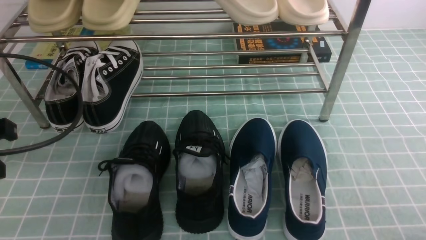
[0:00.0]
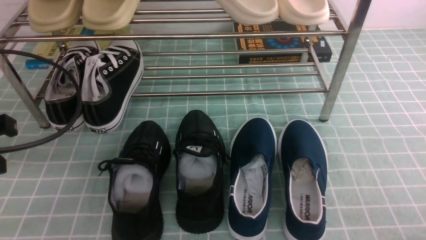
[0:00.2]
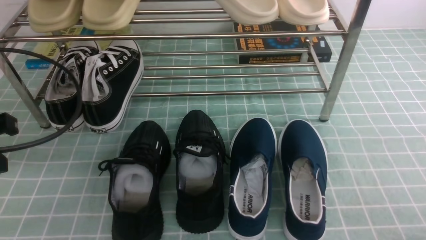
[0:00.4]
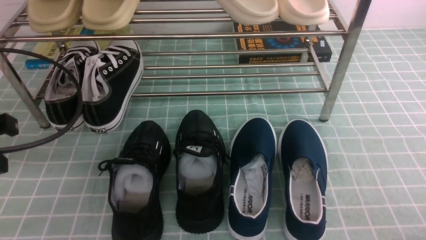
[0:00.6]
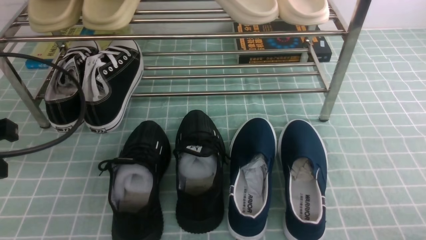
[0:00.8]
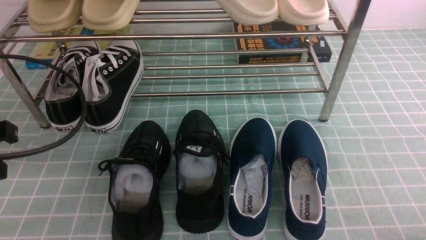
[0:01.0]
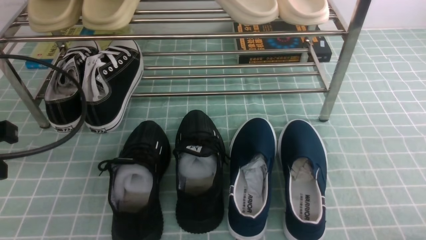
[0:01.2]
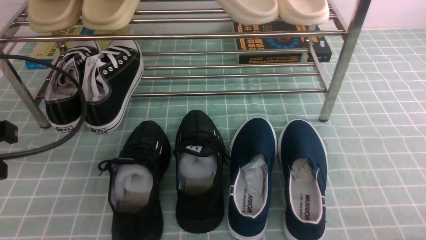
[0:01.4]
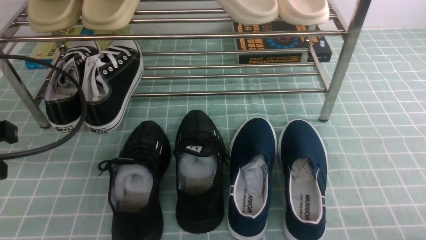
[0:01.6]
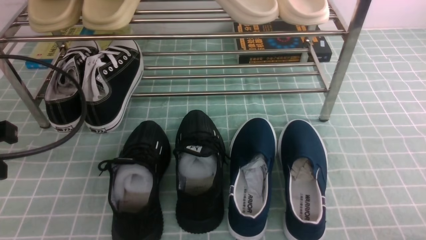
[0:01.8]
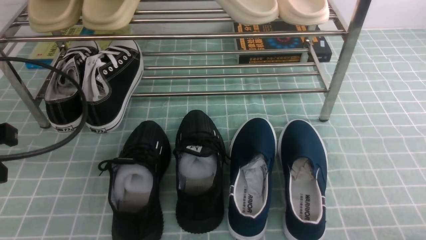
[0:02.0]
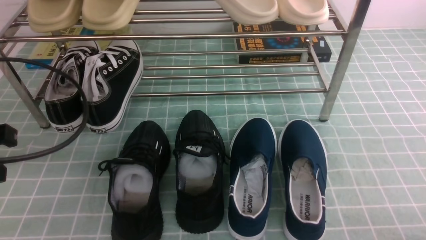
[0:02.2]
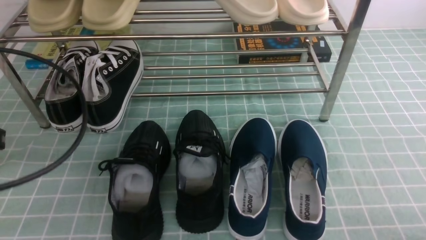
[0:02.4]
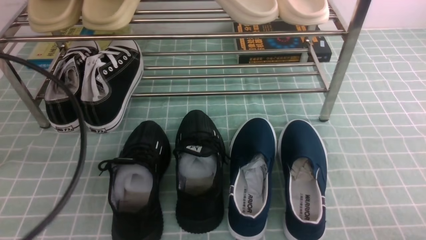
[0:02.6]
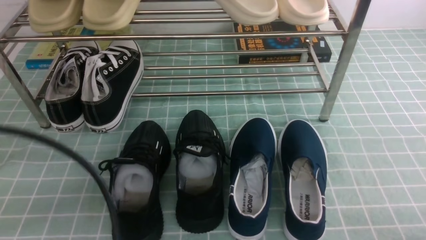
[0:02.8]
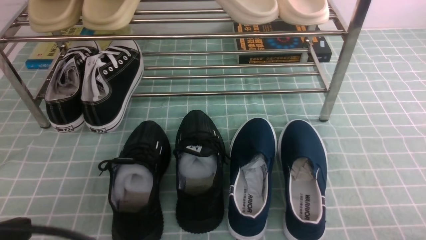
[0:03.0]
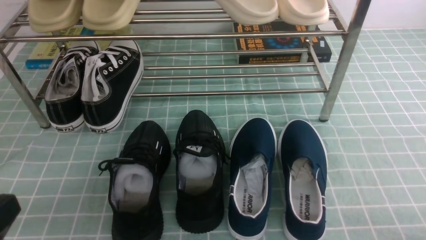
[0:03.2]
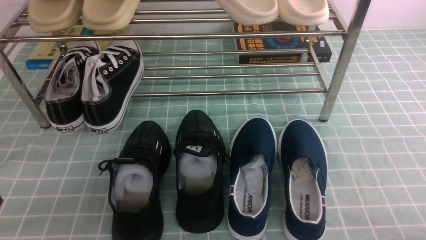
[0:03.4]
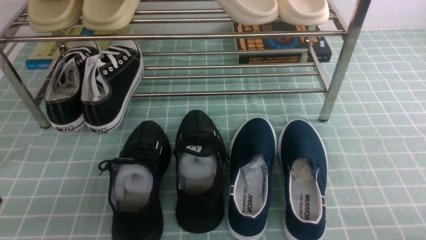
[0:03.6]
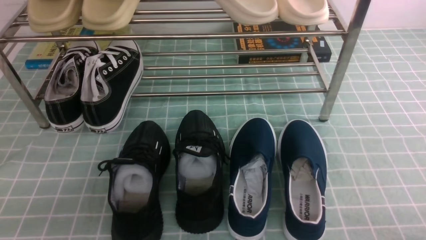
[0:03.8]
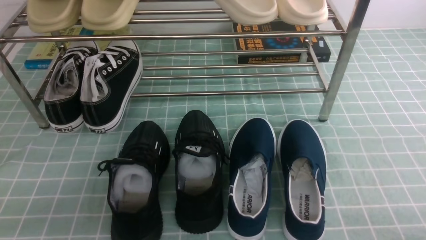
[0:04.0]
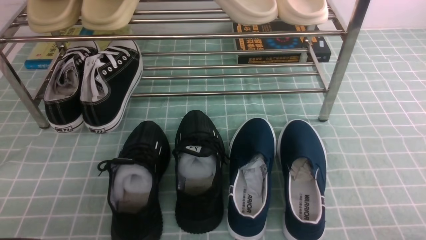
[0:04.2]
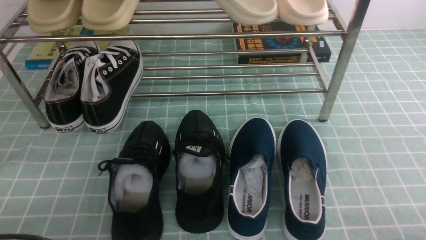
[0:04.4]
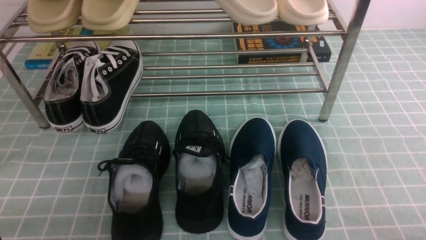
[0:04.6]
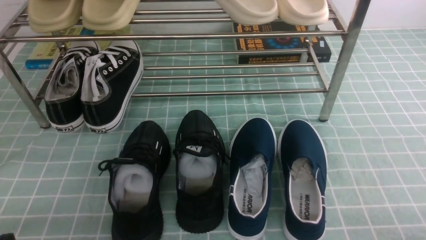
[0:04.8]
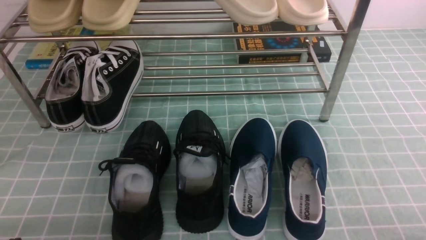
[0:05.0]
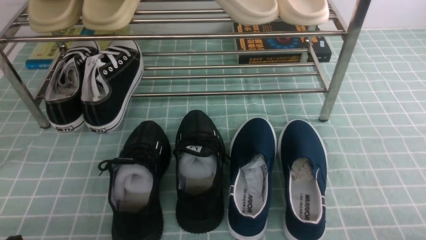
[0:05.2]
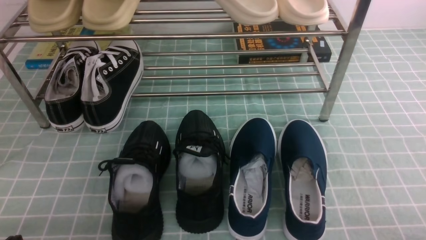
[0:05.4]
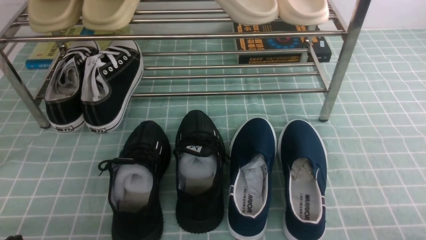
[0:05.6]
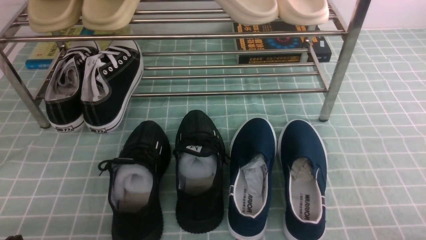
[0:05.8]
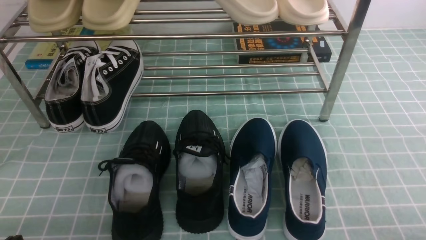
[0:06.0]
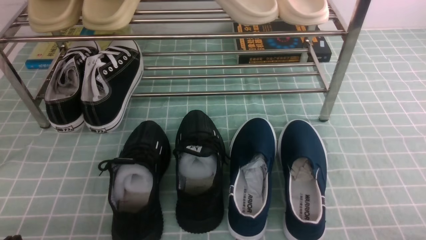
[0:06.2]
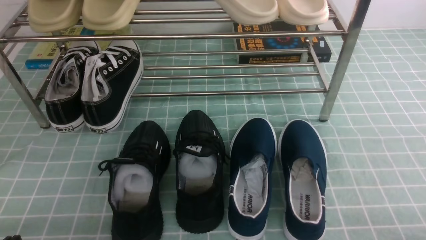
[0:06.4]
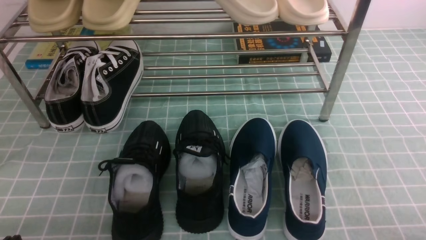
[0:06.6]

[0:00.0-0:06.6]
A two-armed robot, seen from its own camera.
0:01.6 to 0:03.2: The left gripper is displaced backward by about 20 cm.
0:03.2 to 0:05.0: The left gripper shifts about 15 cm downward.
0:05.0 to 0:06.6: Both grippers stay about where they are.

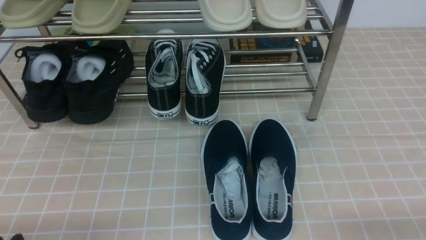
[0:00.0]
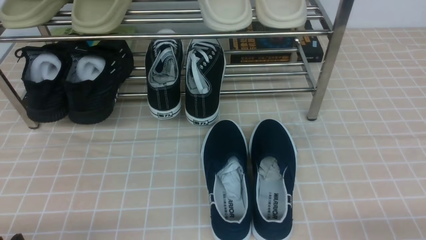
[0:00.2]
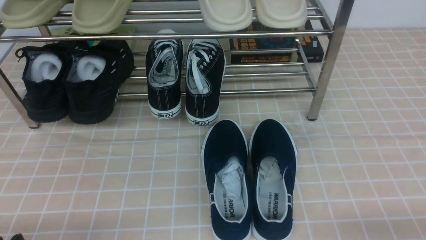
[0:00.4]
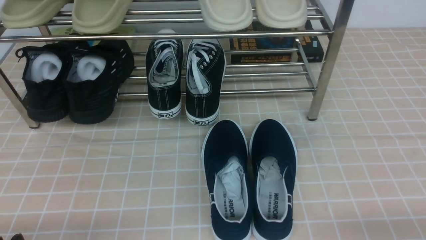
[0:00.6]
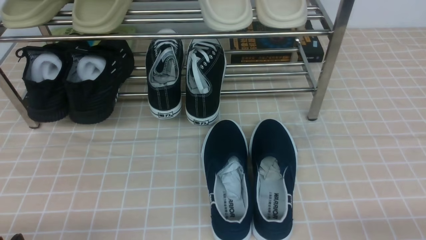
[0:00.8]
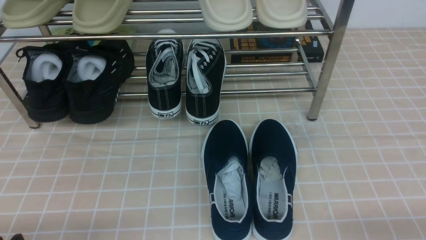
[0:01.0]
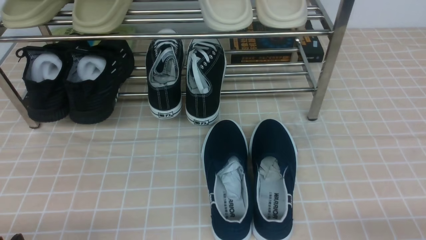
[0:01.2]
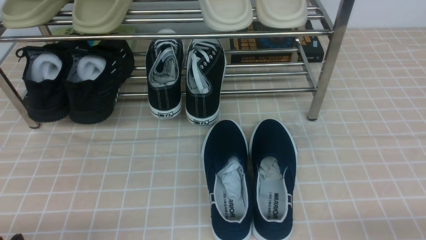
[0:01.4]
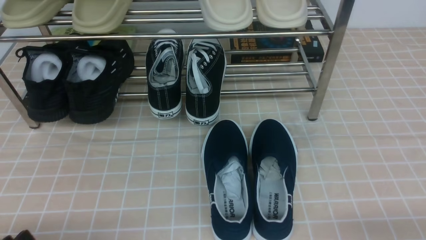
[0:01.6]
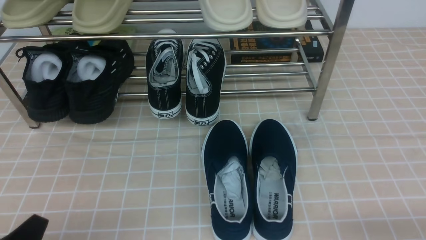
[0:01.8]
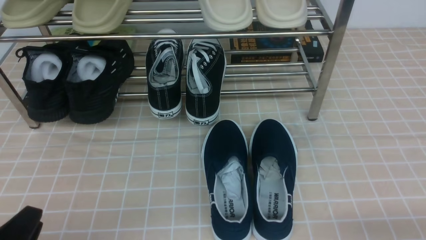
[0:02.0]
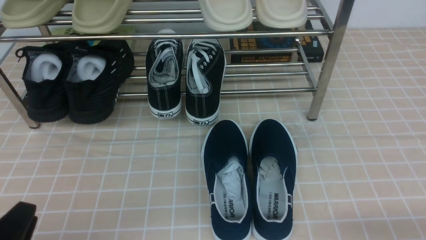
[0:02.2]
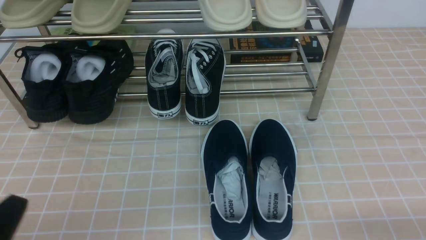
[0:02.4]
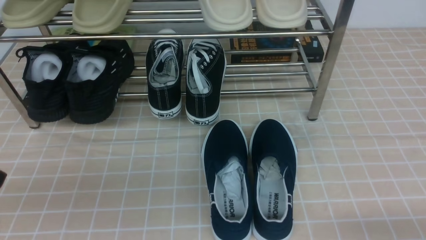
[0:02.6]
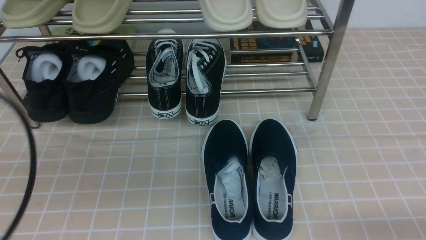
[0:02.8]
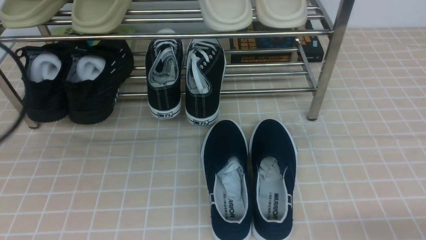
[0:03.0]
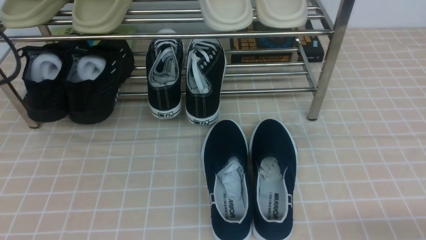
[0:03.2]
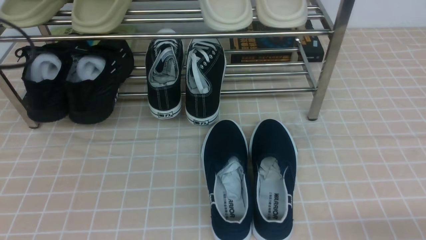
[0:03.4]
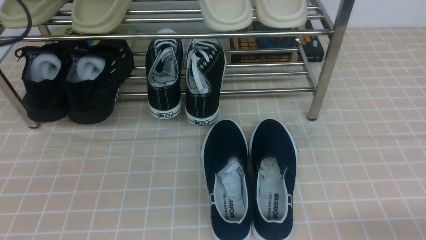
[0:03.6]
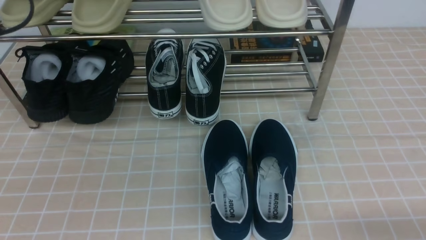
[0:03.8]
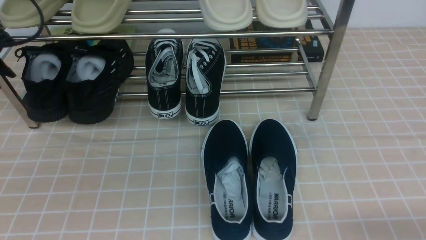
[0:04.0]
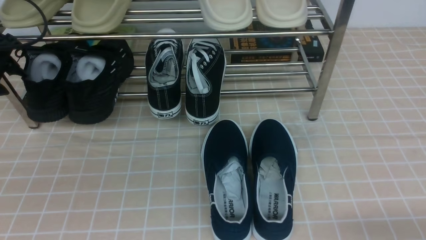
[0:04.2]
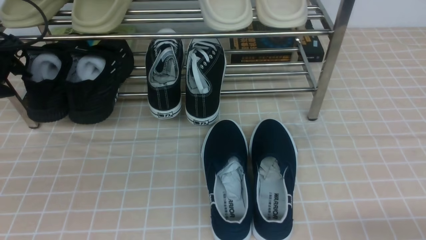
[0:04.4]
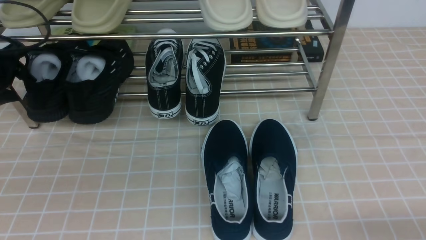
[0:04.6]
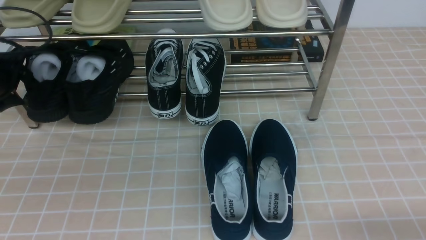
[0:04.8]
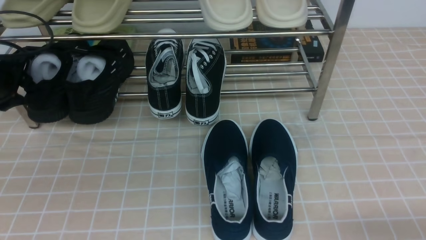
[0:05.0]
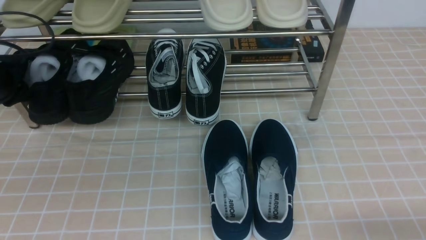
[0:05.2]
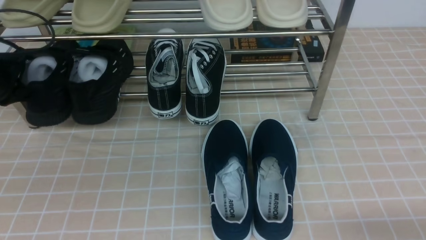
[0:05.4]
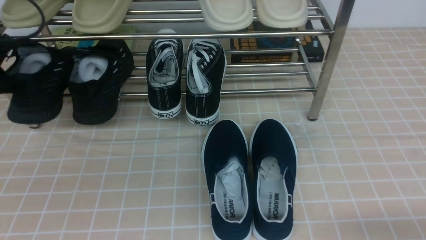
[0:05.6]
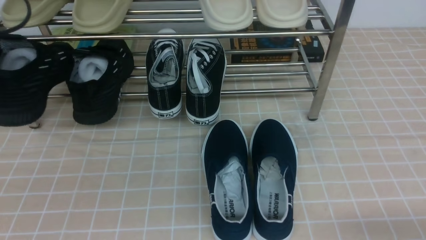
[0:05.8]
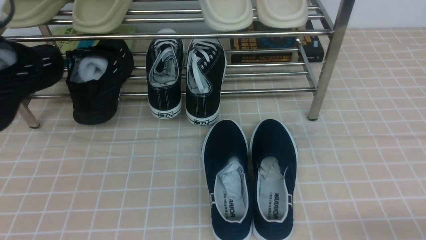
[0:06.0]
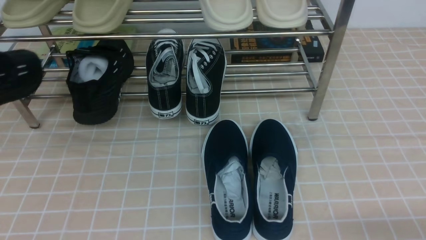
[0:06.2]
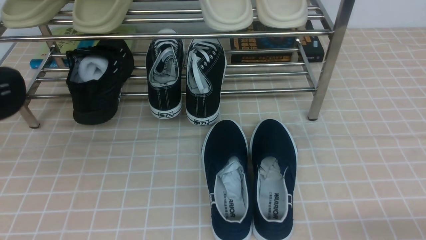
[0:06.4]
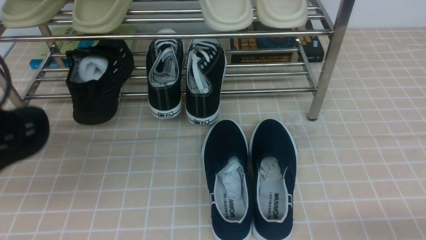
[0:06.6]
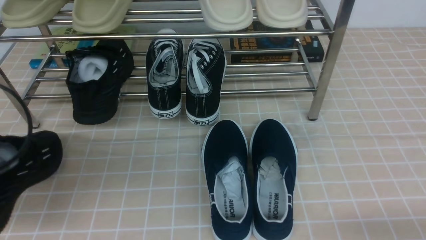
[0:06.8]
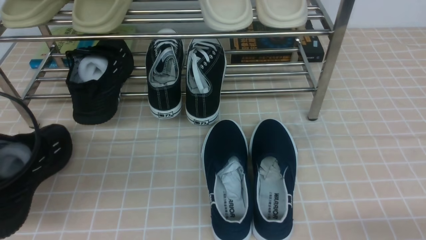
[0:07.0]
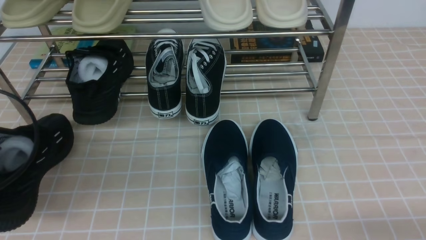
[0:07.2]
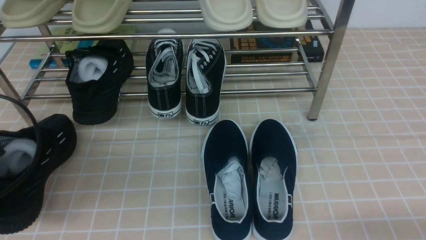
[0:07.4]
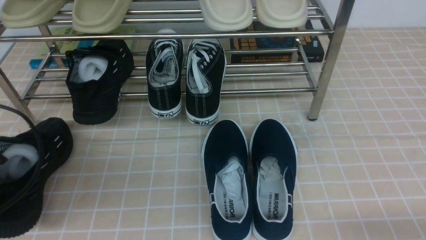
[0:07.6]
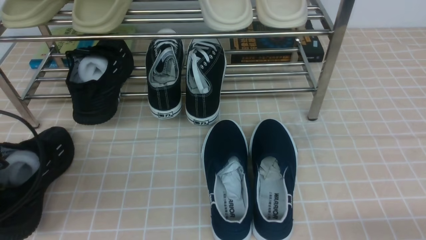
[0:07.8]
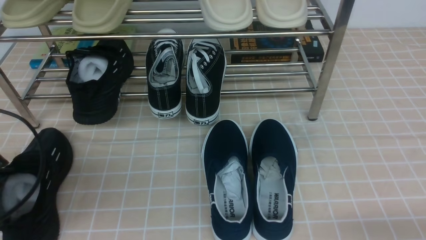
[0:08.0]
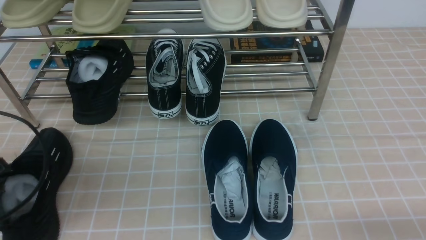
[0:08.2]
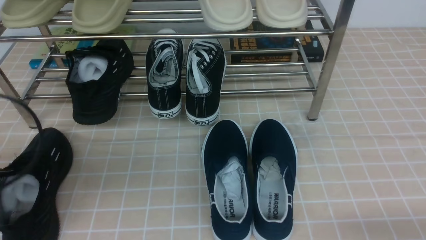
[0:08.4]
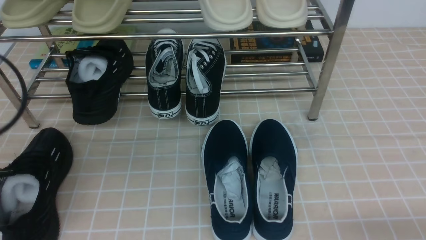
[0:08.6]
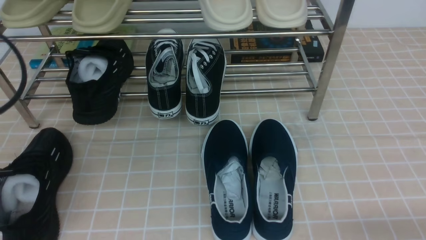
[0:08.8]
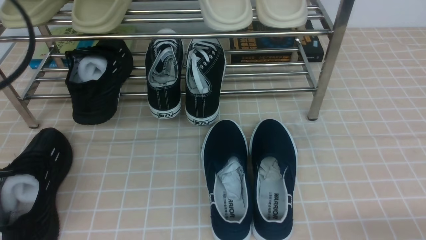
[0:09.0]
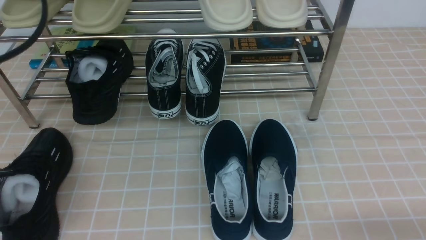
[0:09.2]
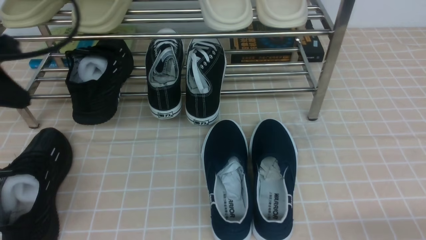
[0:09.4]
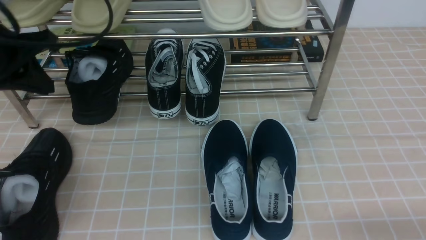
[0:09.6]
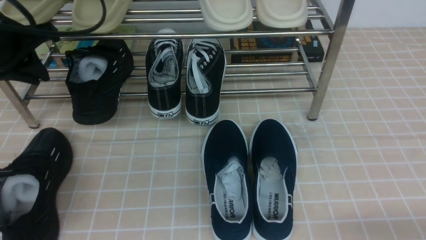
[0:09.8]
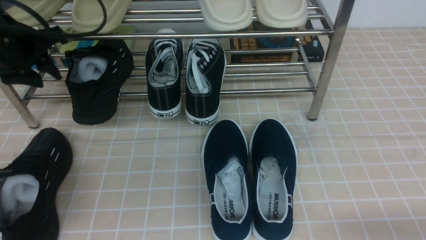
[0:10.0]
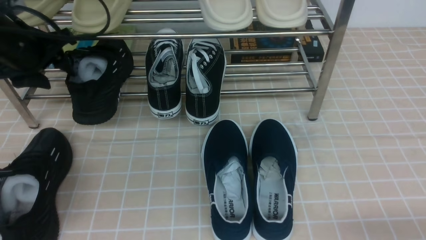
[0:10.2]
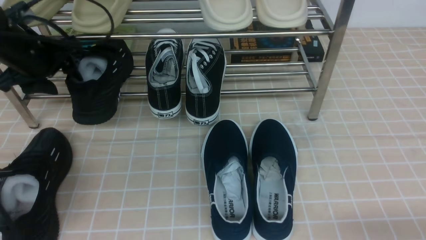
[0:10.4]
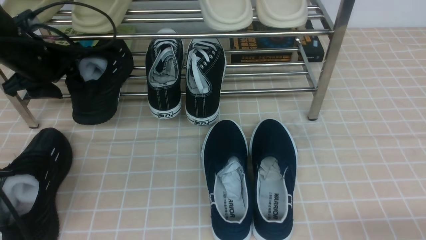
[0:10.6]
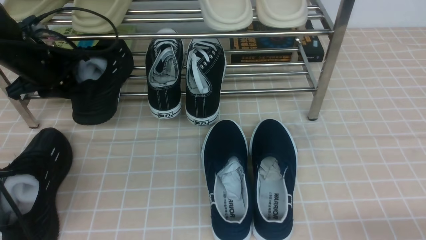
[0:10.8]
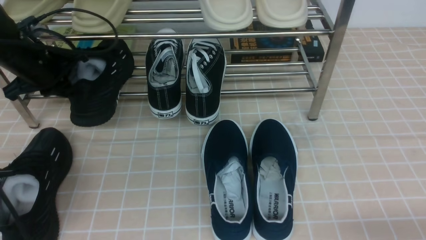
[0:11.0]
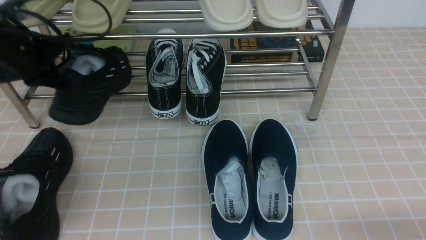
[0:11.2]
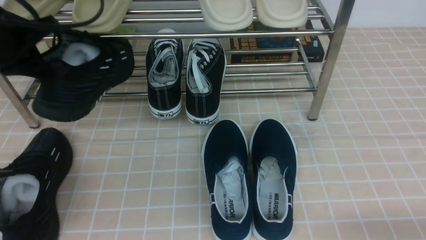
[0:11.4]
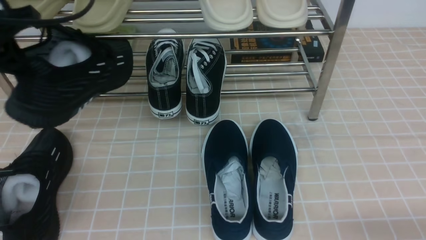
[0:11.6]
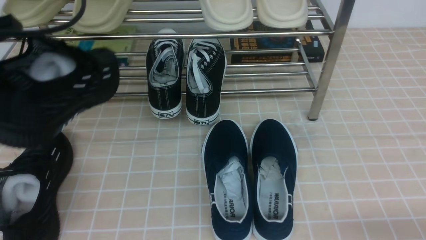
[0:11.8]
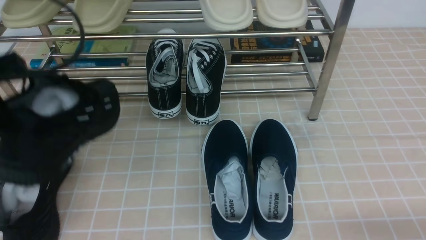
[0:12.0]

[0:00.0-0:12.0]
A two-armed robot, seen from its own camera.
Step, 0:00.0 to 0:05.2: use the left arm to clamp a shoe on the left side of the shoe rack.
Step, 0:05.4 to 0:08.2: Use your left arm to remove the clamped shoe from the shoe rack and put it down.
Step, 0:08.4 to 0:10.8: use the left arm to clamp a shoe on the left side of the shoe rack.
0:01.6 to 0:03.0: The right gripper opens up; the left gripper heads upward and forward, covering approximately 25 cm, and closes.
0:03.0 to 0:04.4: The left gripper shifts about 20 cm forward and downward, and opens its fingers.
0:04.4 to 0:06.0: The left gripper shifts roughly 15 cm backward and upward, and closes its fingers.
0:06.0 to 0:07.6: The left gripper is displaced downward and backward by some 15 cm.
0:07.6 to 0:09.0: The left gripper travels upward by about 15 cm, and opens and closes again.
0:09.0 to 0:10.4: The left gripper heads forward and downward, covering roughly 25 cm, and opens up.
0:10.4 to 0:12.0: The left gripper moves backward and upward, approximately 15 cm, and closes up.
